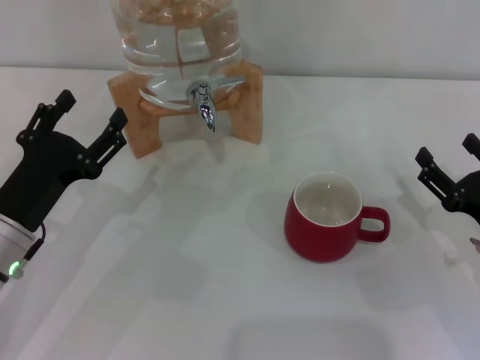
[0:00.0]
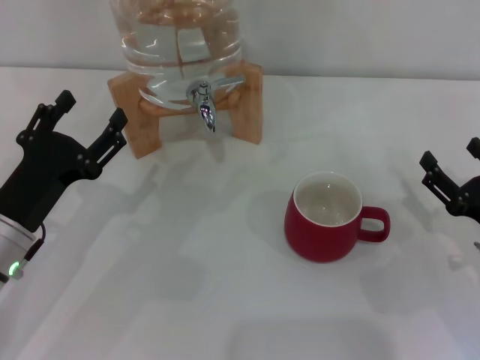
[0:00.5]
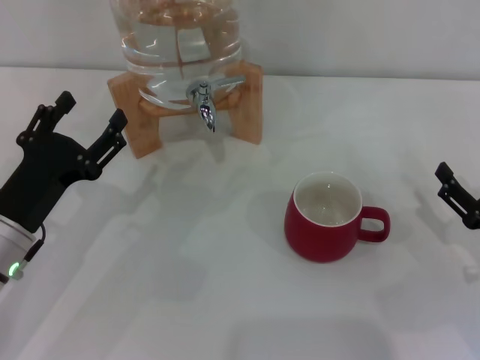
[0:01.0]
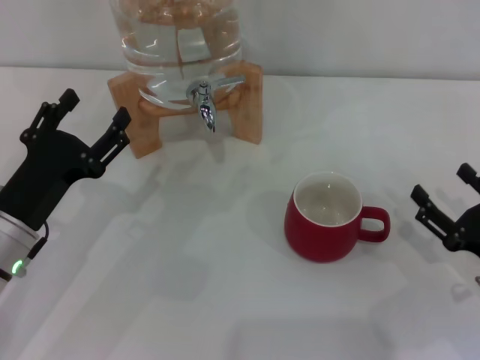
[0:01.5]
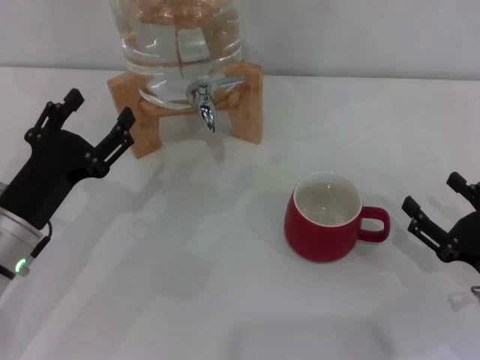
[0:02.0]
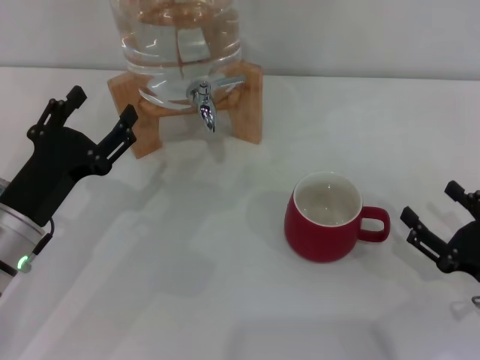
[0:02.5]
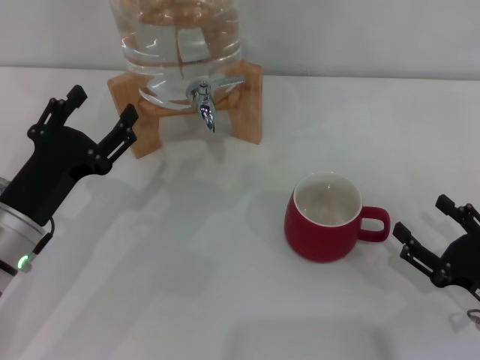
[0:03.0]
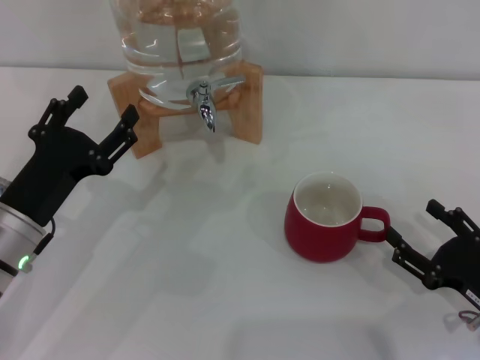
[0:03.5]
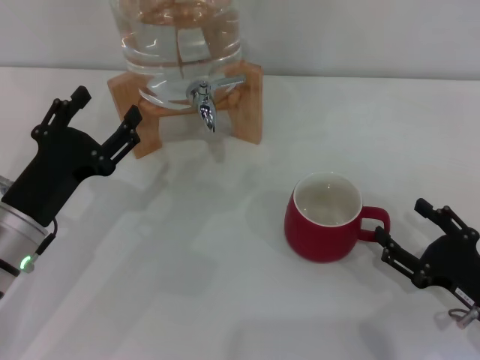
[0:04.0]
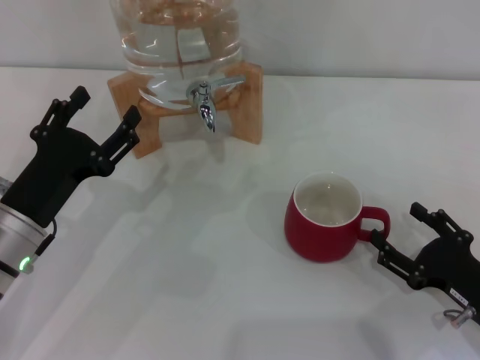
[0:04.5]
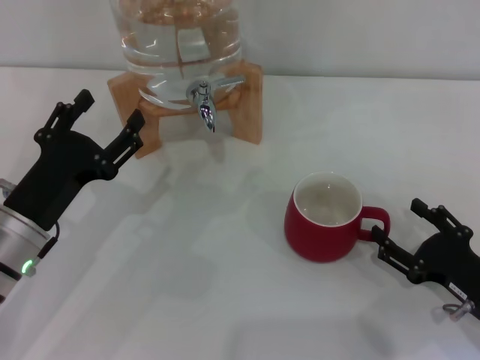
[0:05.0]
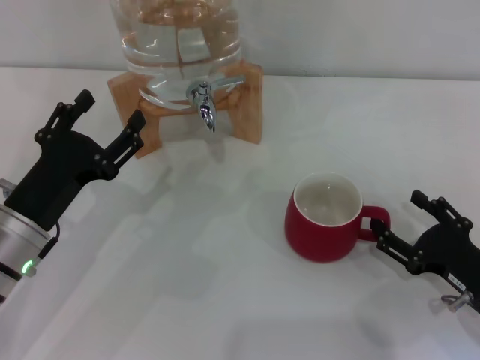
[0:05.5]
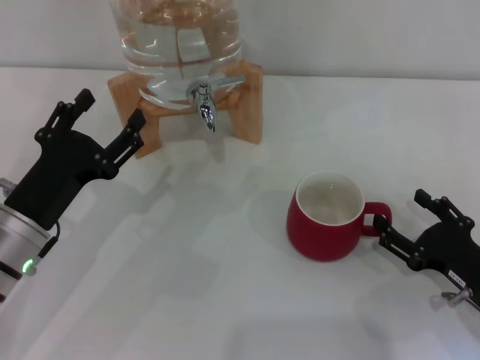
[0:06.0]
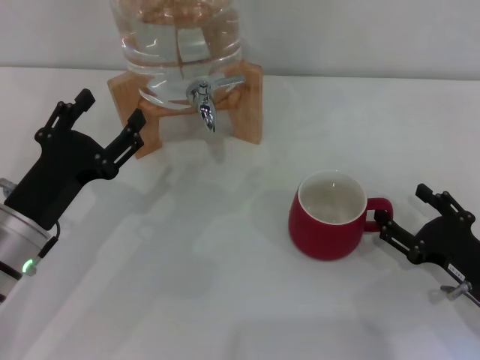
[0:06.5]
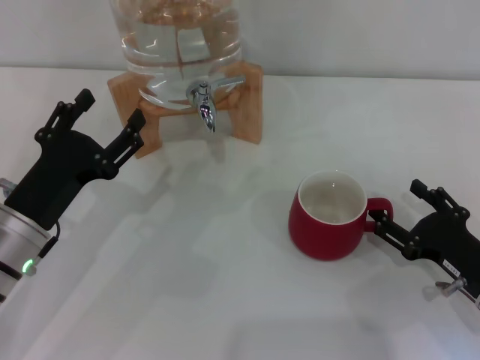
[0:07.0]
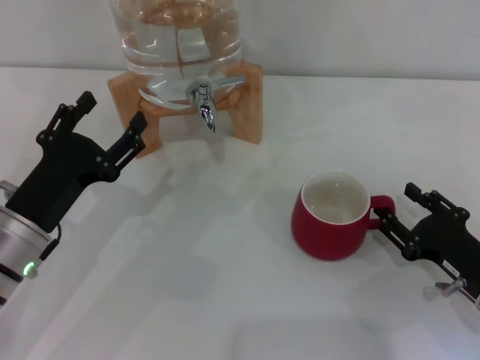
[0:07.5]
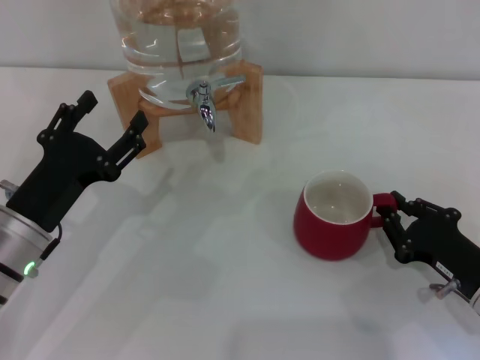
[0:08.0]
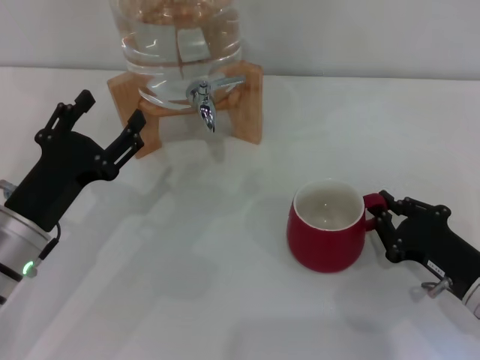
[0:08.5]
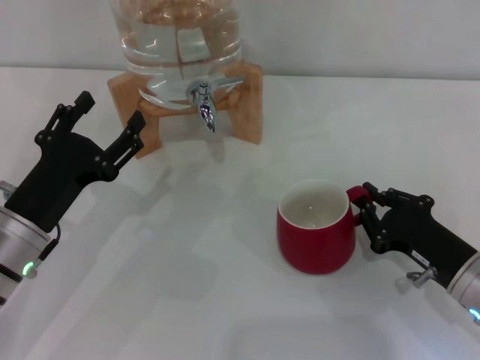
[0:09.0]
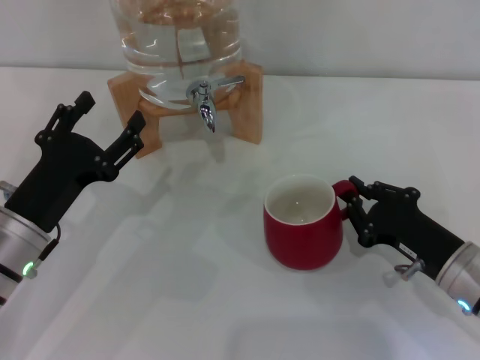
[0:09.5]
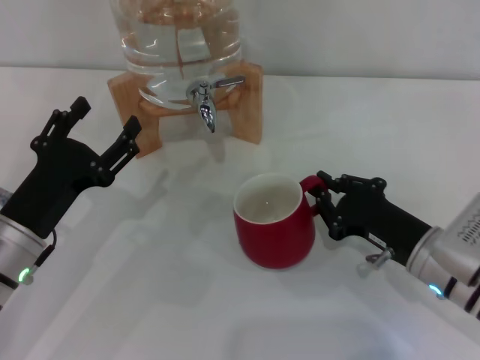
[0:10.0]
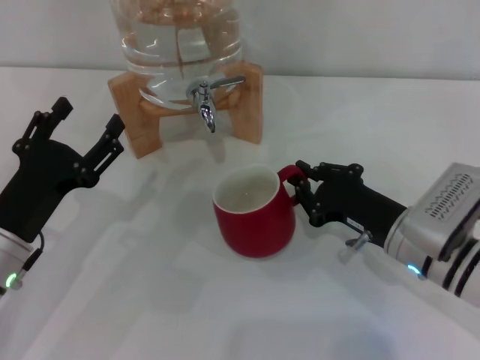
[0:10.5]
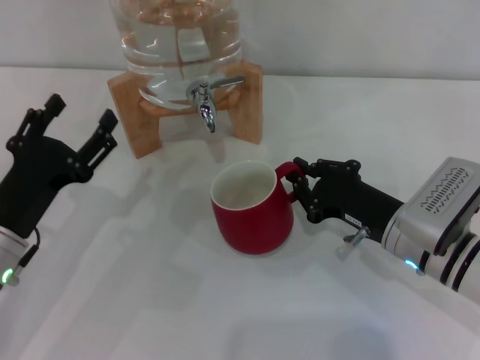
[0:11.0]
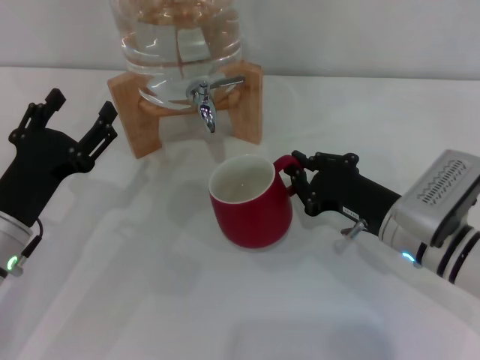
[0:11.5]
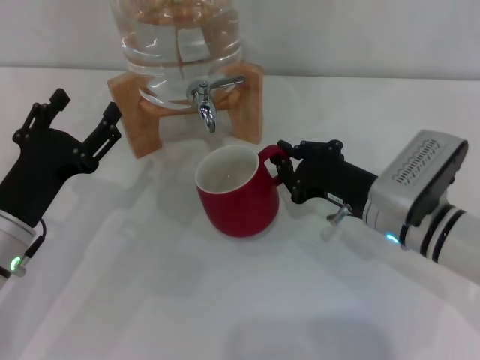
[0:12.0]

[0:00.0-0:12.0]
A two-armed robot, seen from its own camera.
Task of the whole recording: the right gripper pick up the red cup and place it horizontally under the faucet, the left gripper turn on the faucet to fill the cup, and then turn off the faucet.
0:00.0 to 0:06.0: The grippers make only small movements.
0:06.0 to 0:08.0: The right gripper closes its fingers.
0:08.0 to 0:10.0: The right gripper travels to the left by some 5 cm, and closes its fingers.
0:10.0 to 0:12.0: The right gripper changes place by some 5 cm.

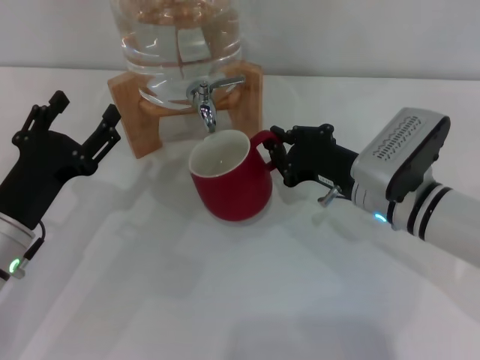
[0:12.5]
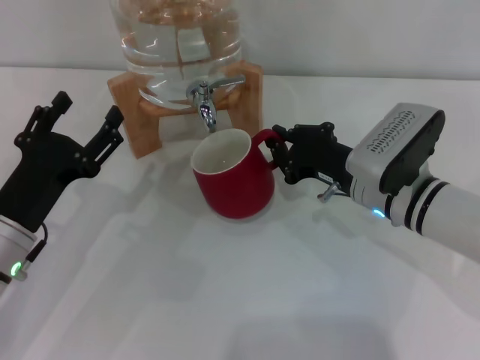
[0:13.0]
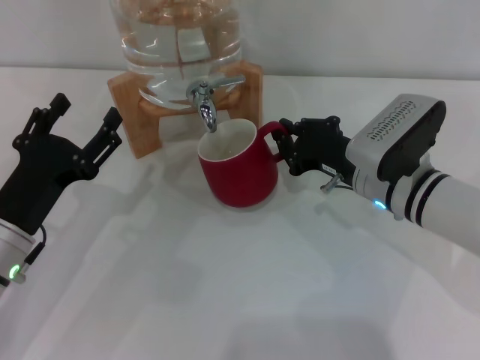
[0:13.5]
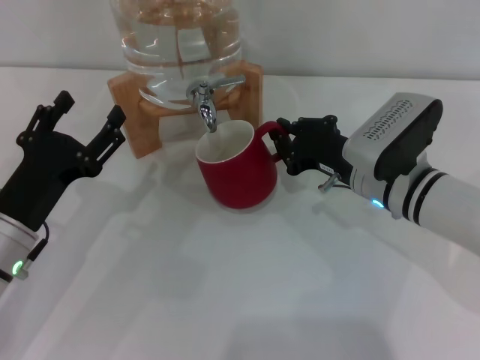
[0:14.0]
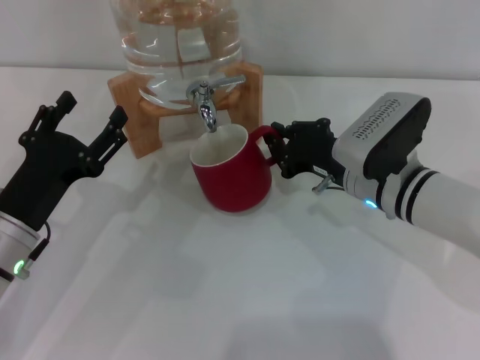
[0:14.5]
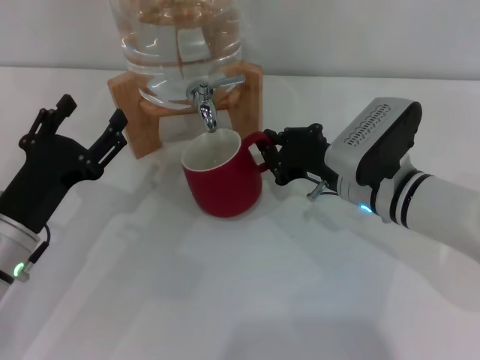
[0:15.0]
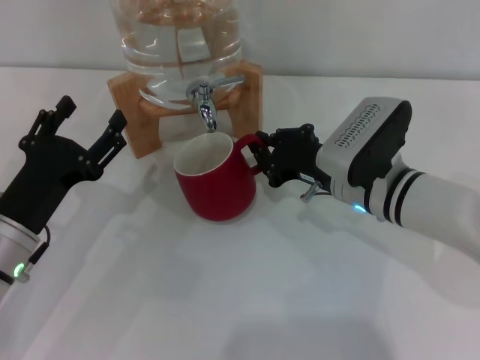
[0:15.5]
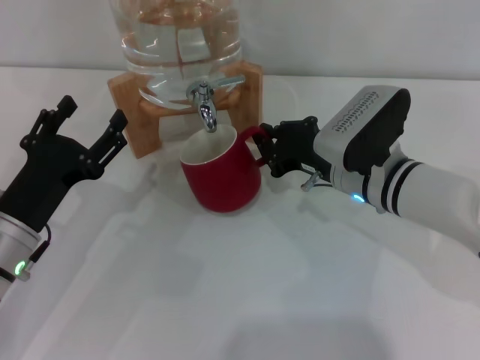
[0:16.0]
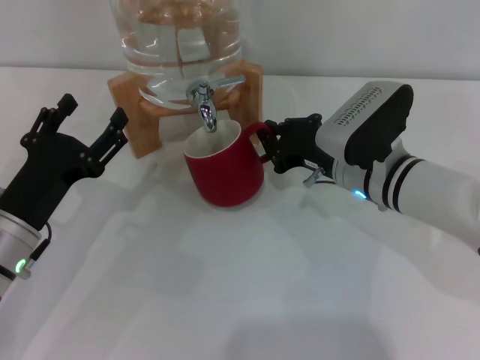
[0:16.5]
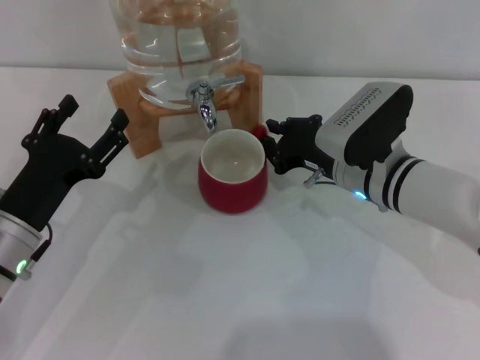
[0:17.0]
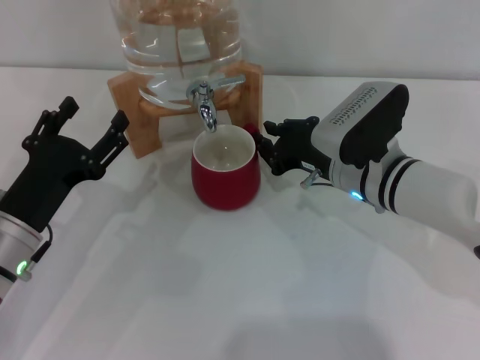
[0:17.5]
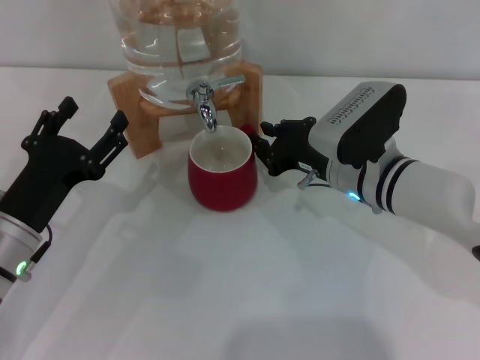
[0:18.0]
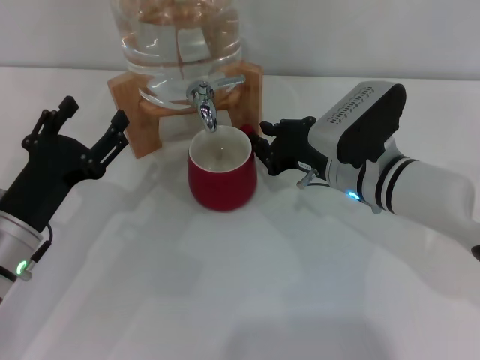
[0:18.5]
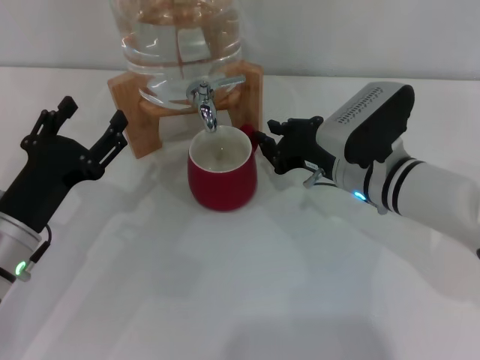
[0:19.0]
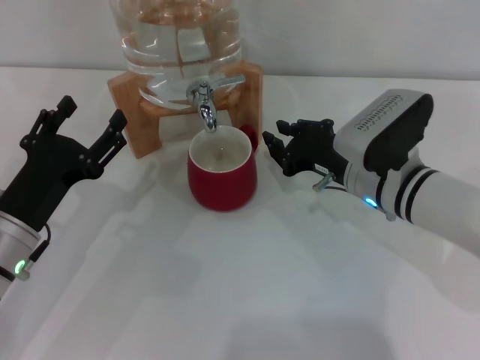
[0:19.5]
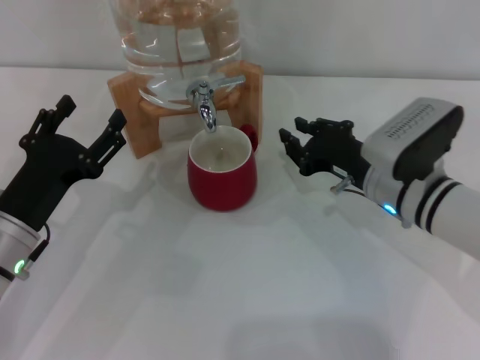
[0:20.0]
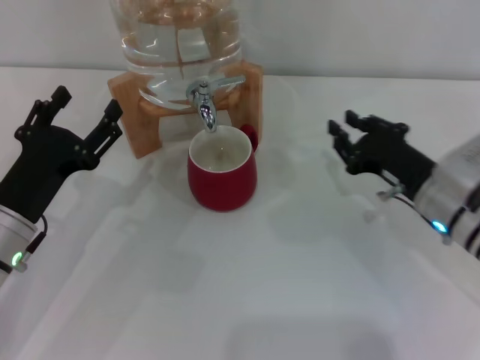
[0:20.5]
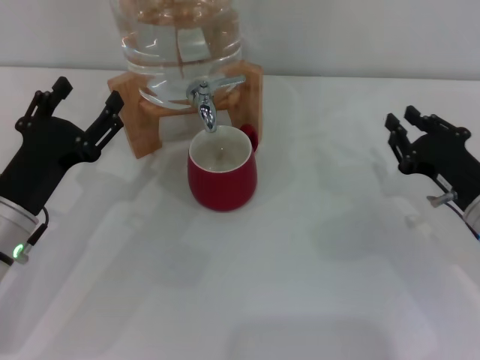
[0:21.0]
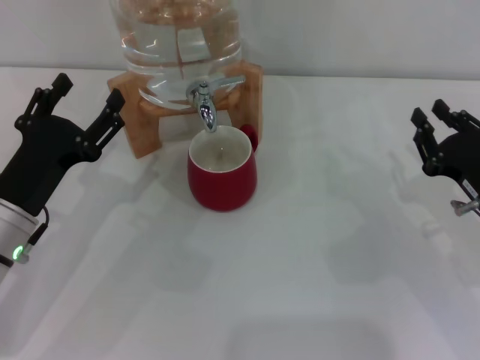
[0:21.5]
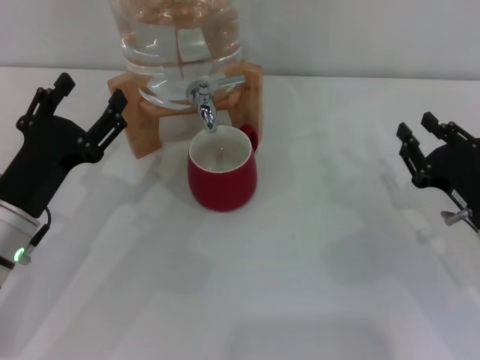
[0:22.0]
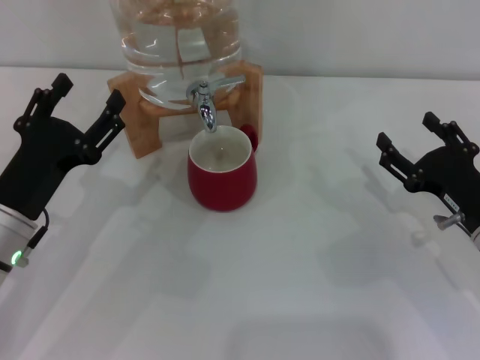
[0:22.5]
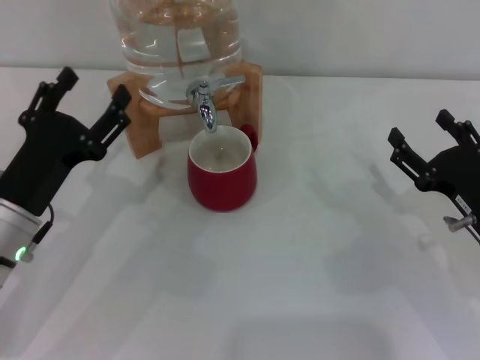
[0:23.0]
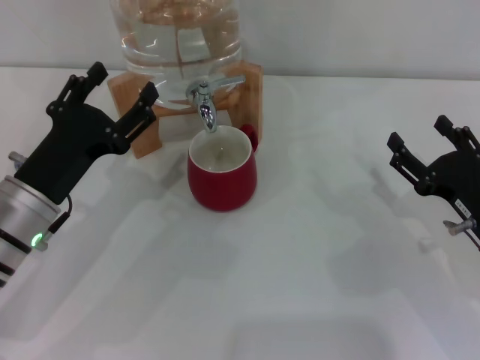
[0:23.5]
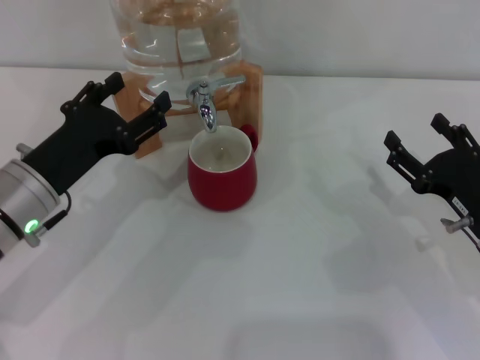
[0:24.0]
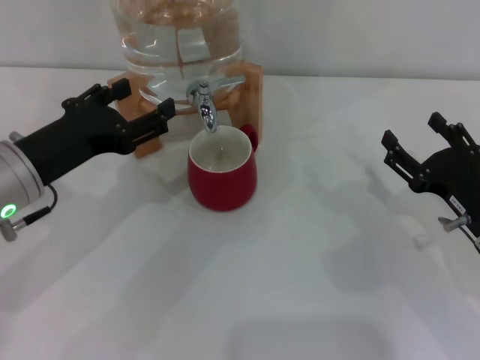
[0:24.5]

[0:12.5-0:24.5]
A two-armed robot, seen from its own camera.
Task of the whole recording: the right gripper pick up the red cup and place it horizontally under the faucet, the left gripper turn on the faucet to fill the cup, and then turn off the faucet.
Step, 0:12.5 to 0:19.0: Move the cup beneath the water dispenser nozzle with the right gripper.
0:12.5 to 0:16.5: The grippers stay close to where they were, moving slightly.
0:16.5 to 0:18.5: The two grippers keep their place.
0:18.5 to 0:20.5: The right gripper shifts roughly 10 cm to the right.
0:20.5 to 0:22.5: The right gripper changes place by some 5 cm, and opens up.
0:22.5 to 0:24.5: The left gripper heads upward, covering roughly 5 cm.

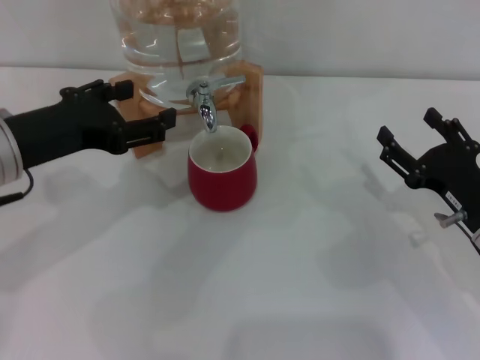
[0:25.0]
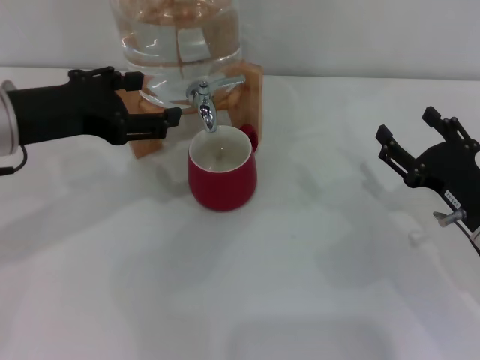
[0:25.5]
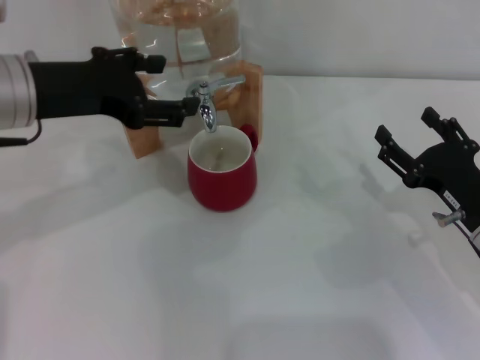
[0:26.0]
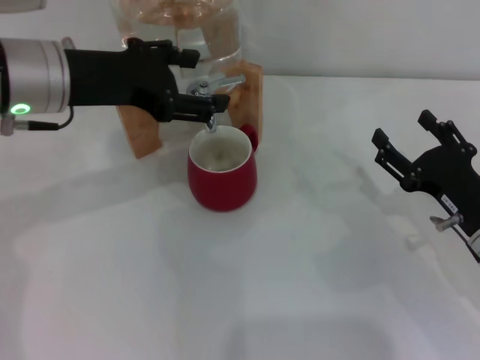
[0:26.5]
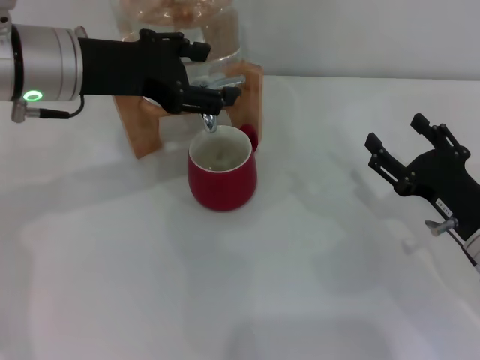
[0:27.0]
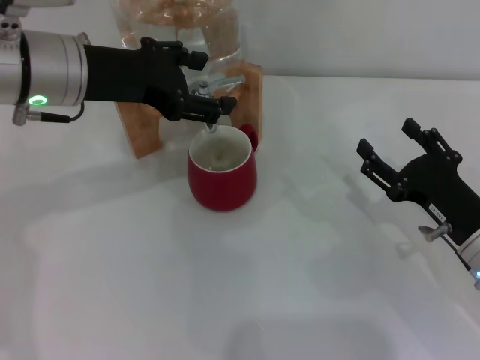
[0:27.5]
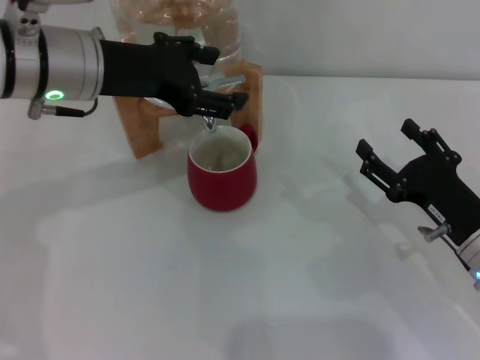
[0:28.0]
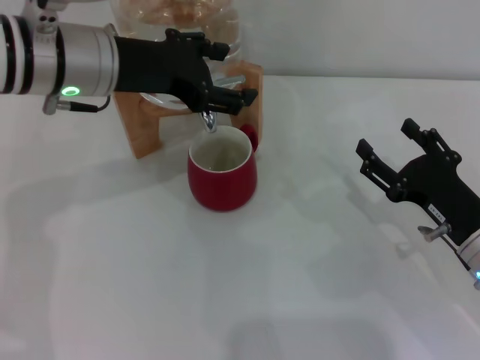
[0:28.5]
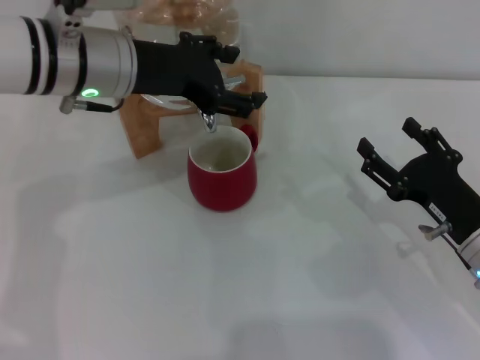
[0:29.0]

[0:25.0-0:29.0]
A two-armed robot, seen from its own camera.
Task of the whole recording: the right gripper pick up the red cup and place it horizontally under the faucet, the left gripper turn on the faucet to fill the cup, and then turn off the faucet.
0:25.0 to 0:27.0: The left gripper shifts approximately 5 cm forward.
0:27.0 to 0:29.0: The grippers make only small movements.
